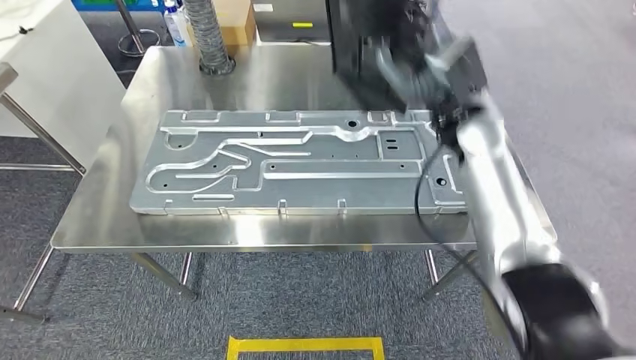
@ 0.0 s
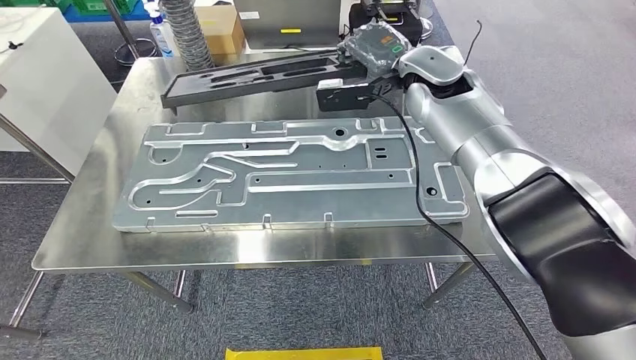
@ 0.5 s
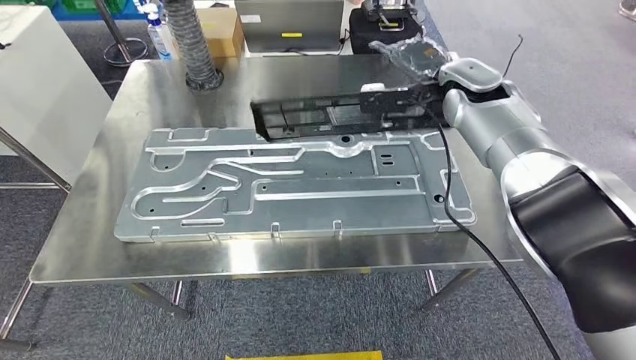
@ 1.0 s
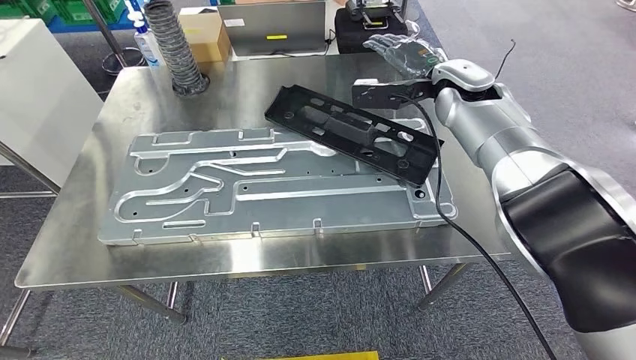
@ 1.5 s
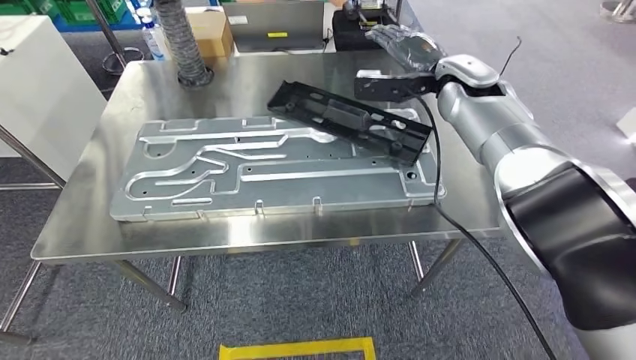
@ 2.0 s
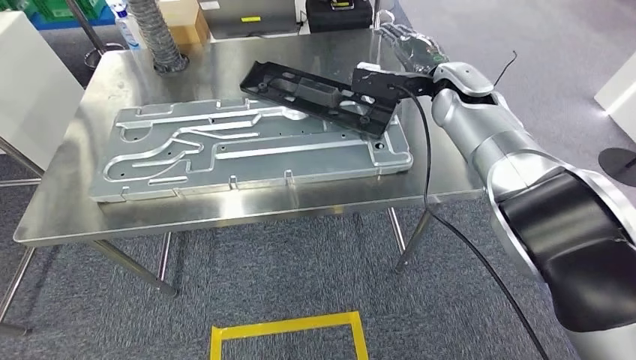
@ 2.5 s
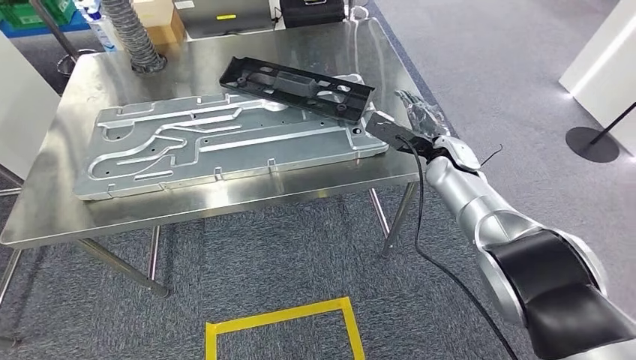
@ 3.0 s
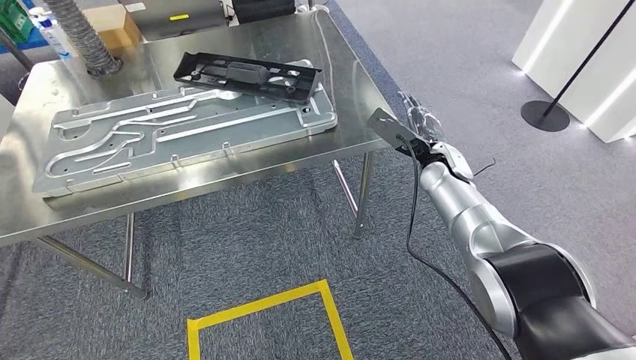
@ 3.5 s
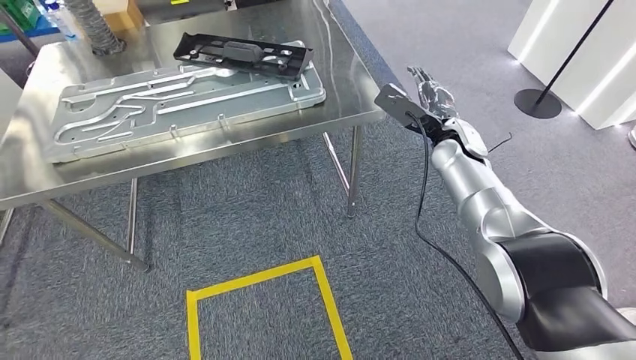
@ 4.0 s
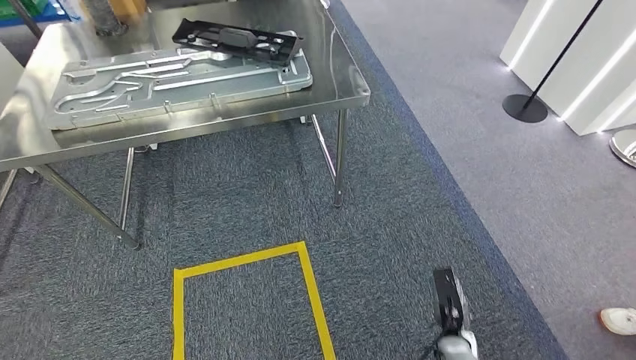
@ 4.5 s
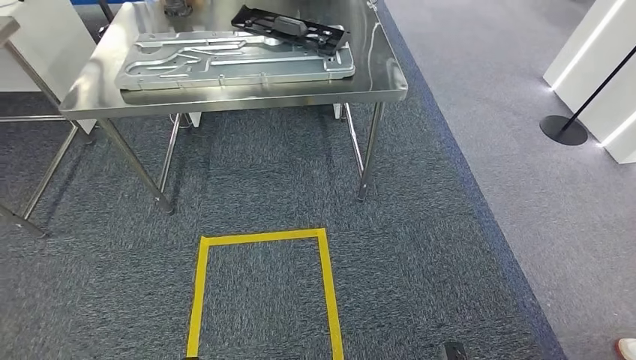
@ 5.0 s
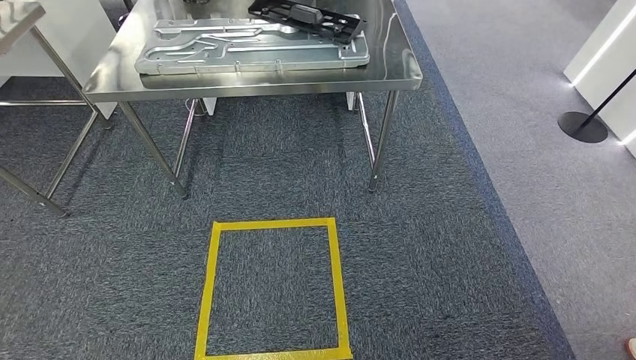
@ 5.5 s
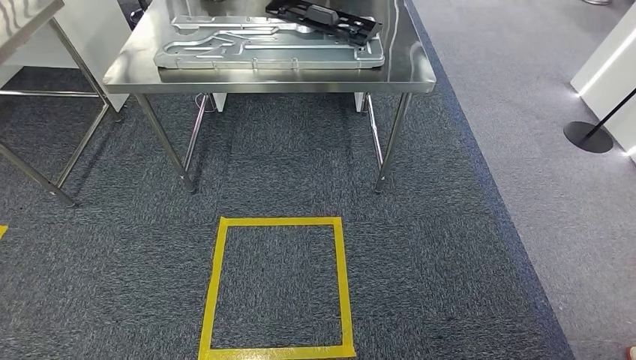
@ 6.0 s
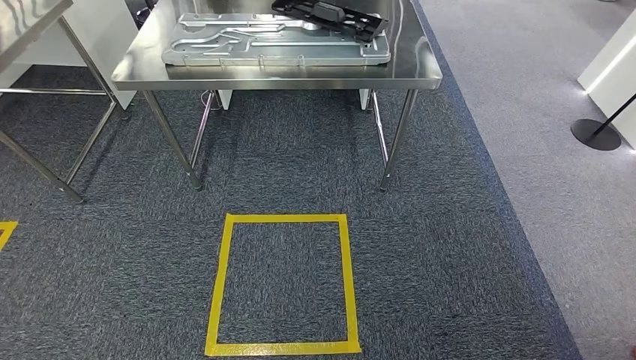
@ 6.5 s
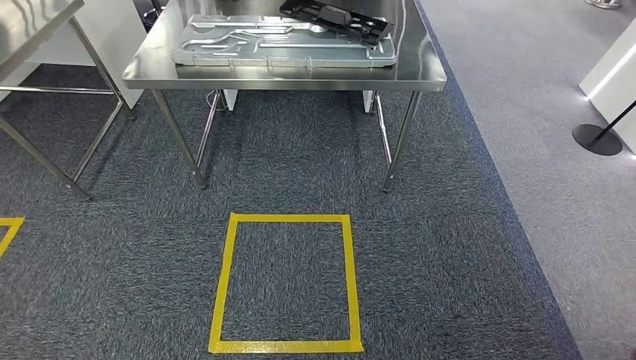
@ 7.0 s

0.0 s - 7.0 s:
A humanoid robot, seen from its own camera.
Step, 1.0 s - 3.0 s: Insert the large material into the corresponding slot on the workbench.
Step, 4.5 s - 7.0 s: Return to the initial position at the shelf.

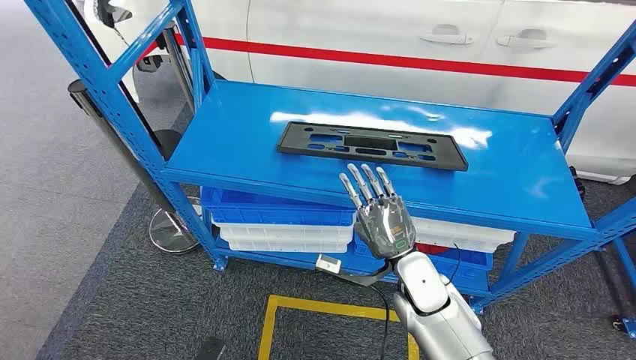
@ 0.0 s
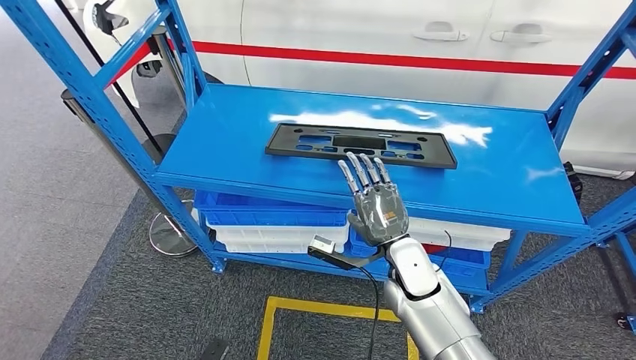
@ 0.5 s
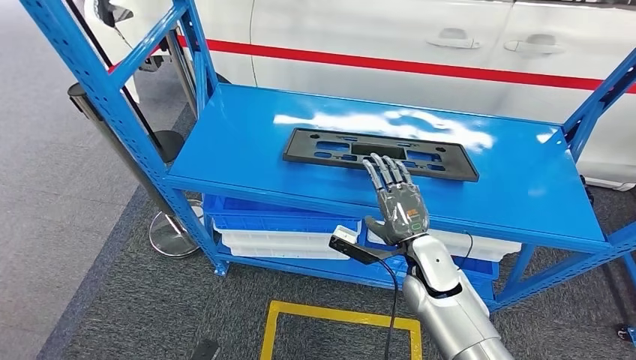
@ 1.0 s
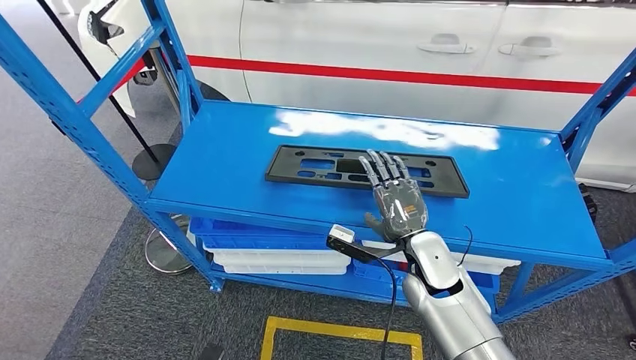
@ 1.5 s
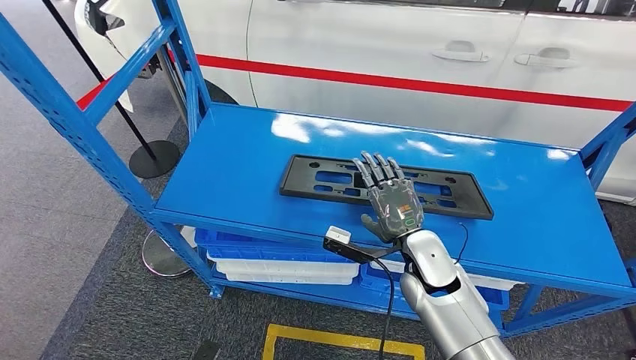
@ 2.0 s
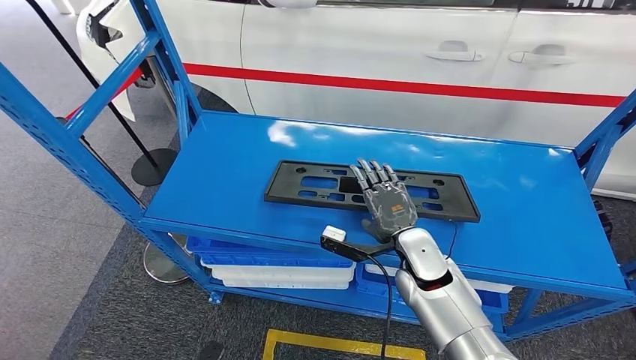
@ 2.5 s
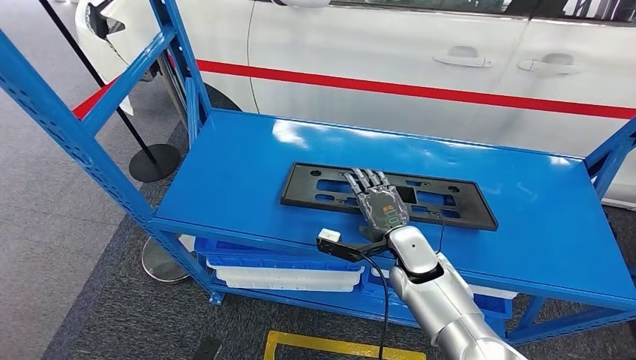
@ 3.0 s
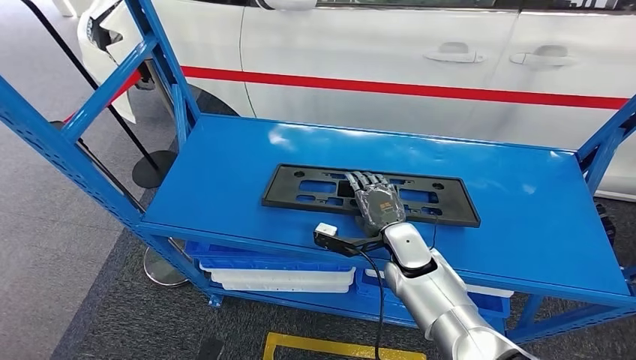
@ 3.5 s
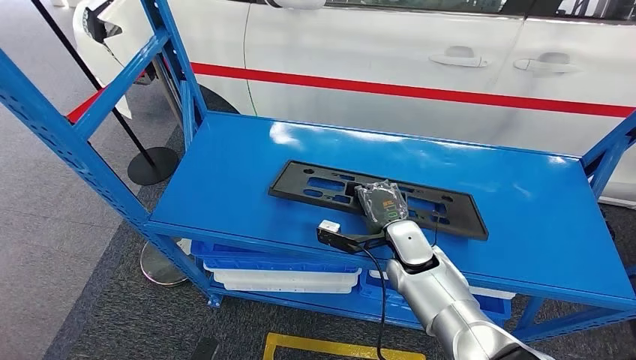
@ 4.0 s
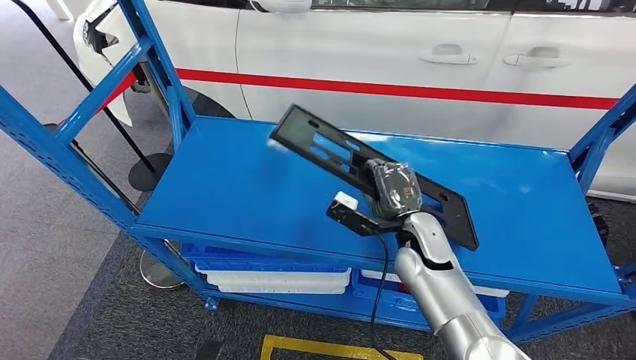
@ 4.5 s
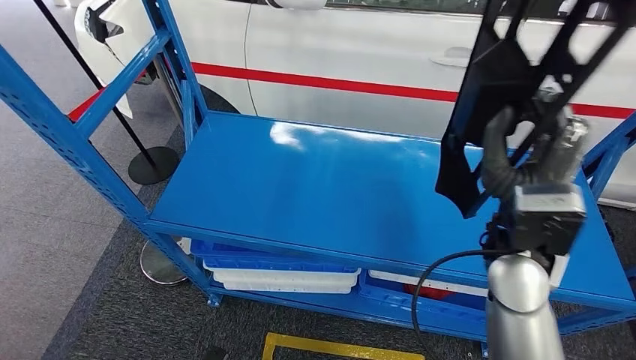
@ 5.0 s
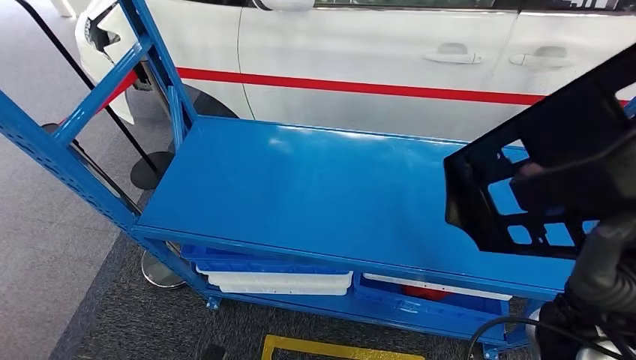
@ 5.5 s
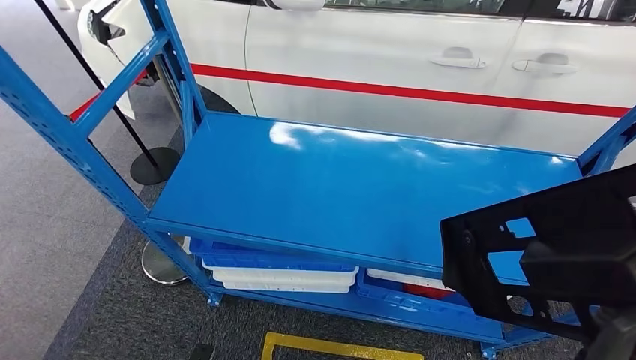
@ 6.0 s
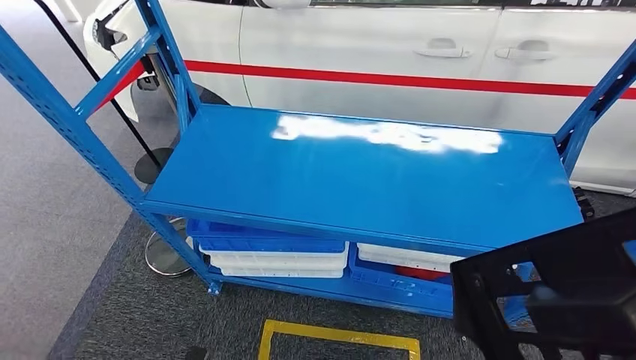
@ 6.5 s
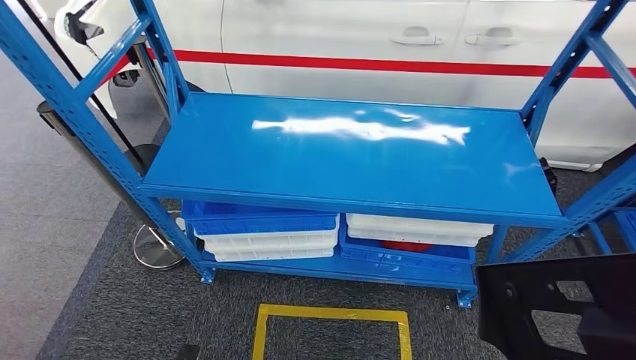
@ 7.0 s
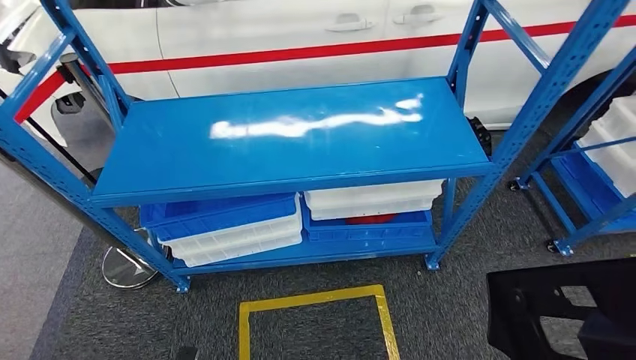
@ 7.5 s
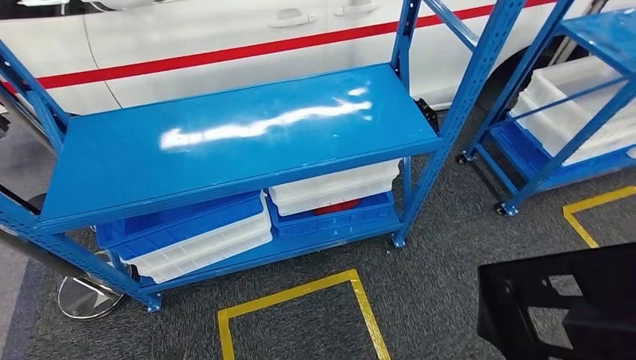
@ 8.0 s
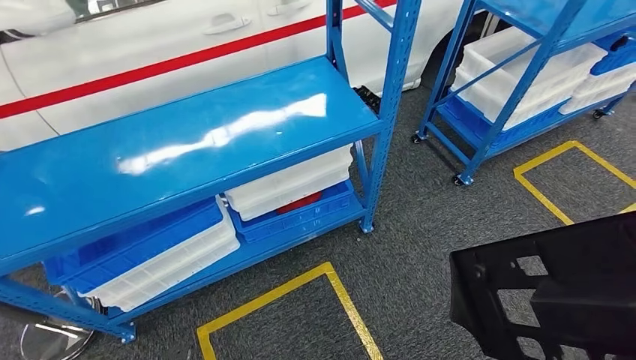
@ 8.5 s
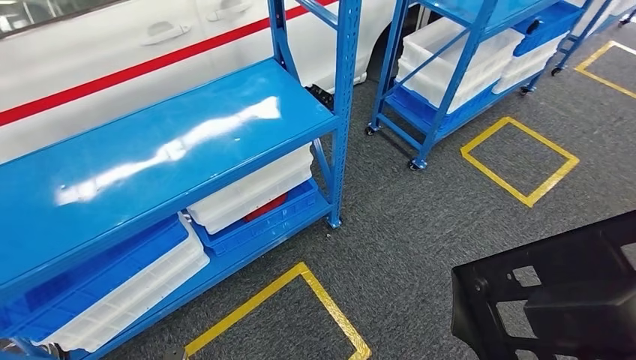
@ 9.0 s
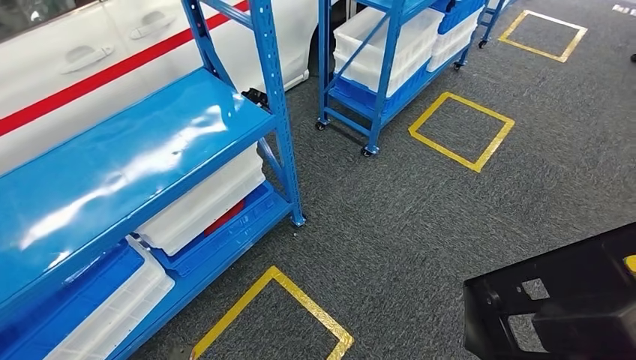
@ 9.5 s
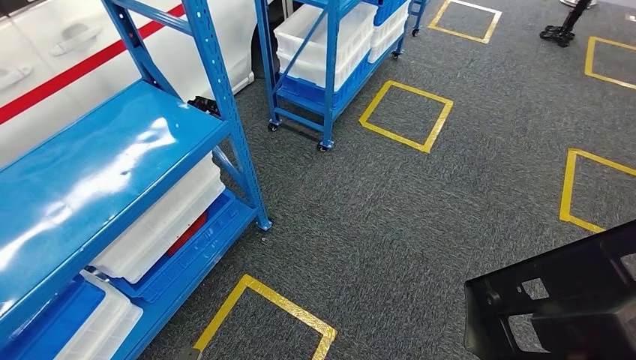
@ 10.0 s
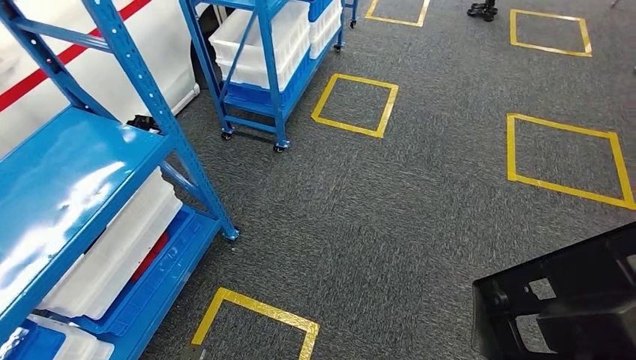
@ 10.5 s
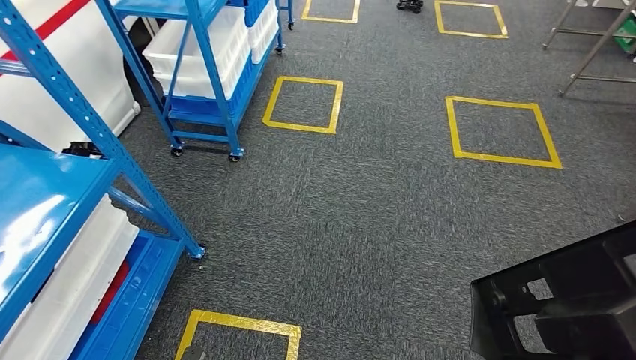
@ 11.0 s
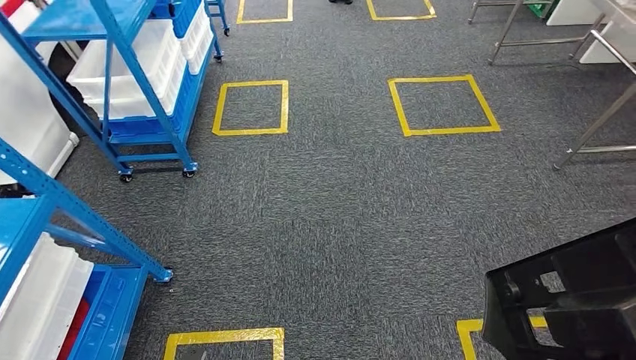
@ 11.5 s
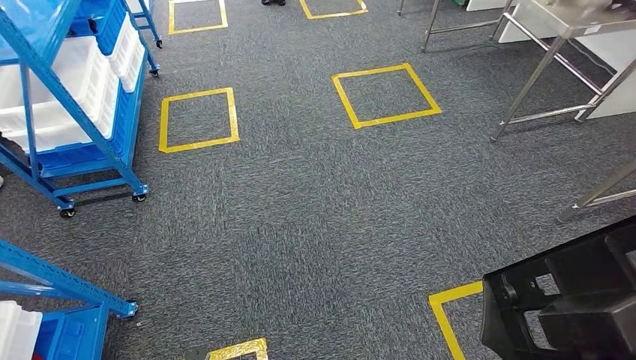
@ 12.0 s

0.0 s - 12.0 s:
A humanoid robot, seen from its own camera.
Step, 0.0 s - 6.0 s: Pick up the large material from the shelf.

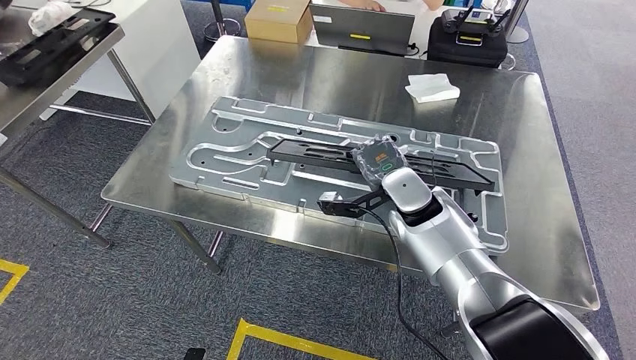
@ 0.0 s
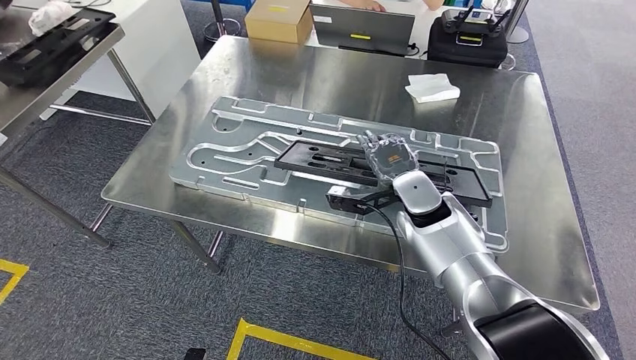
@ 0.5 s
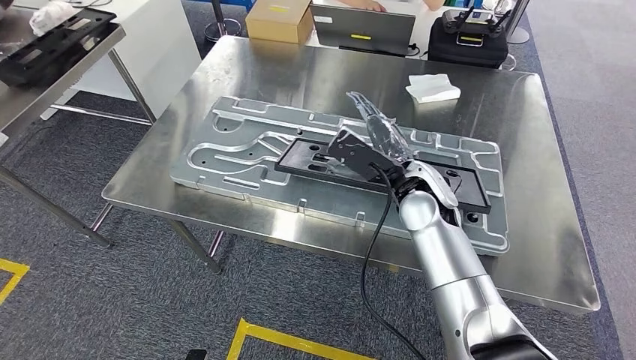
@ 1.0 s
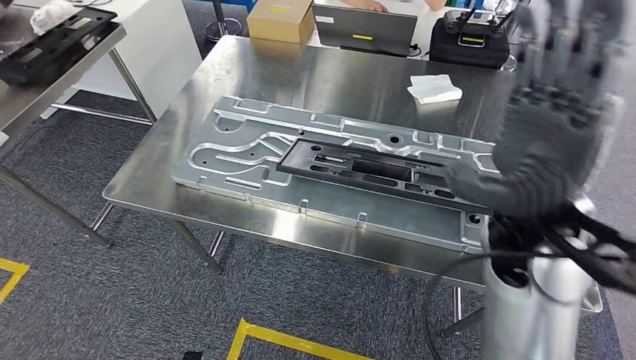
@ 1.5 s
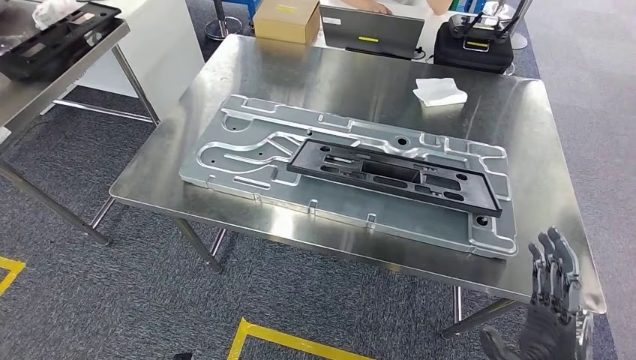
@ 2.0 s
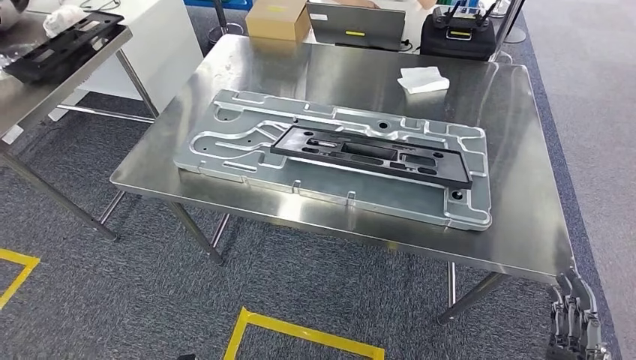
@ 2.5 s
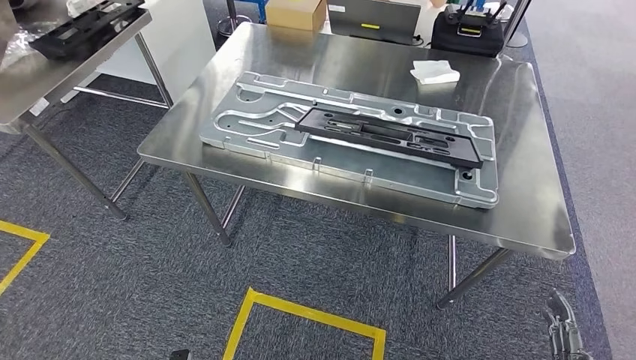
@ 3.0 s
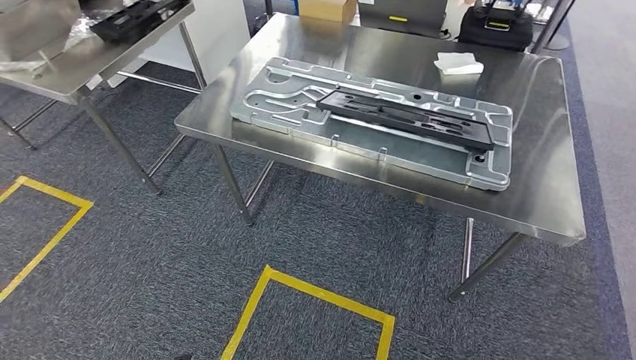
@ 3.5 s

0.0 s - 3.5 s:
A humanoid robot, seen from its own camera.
Step, 0.0 s - 2.5 s: Insert the large material into the corresponding slot on the workbench.
